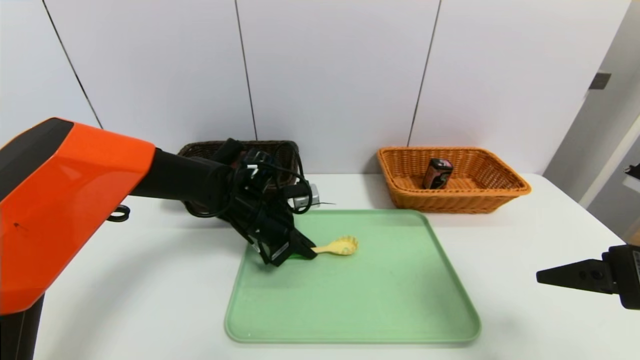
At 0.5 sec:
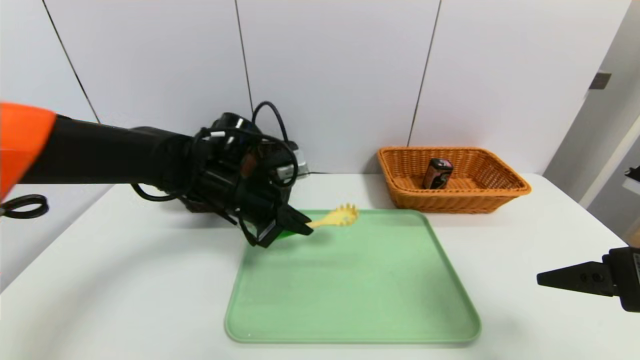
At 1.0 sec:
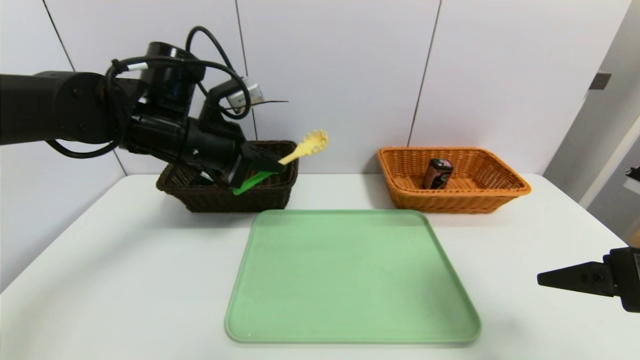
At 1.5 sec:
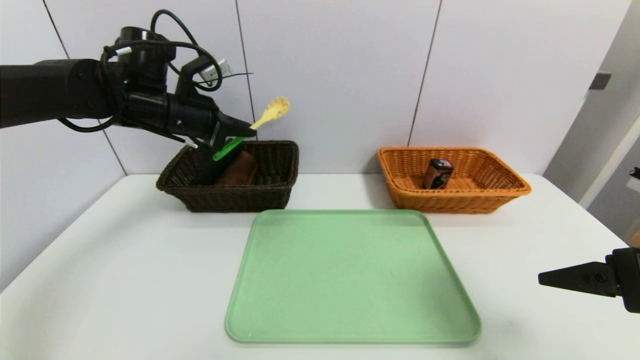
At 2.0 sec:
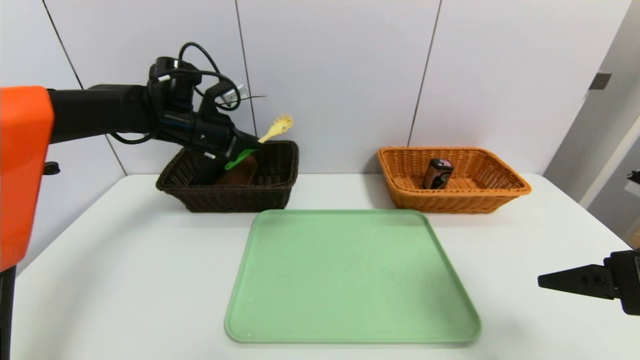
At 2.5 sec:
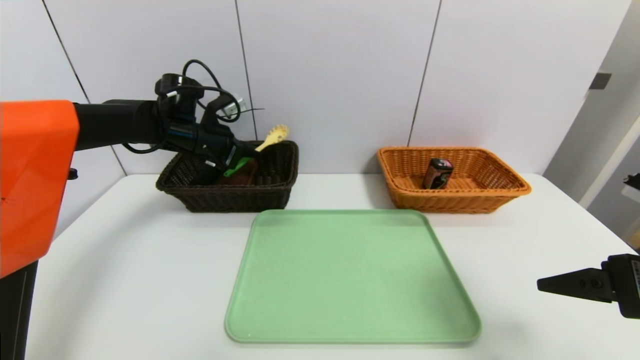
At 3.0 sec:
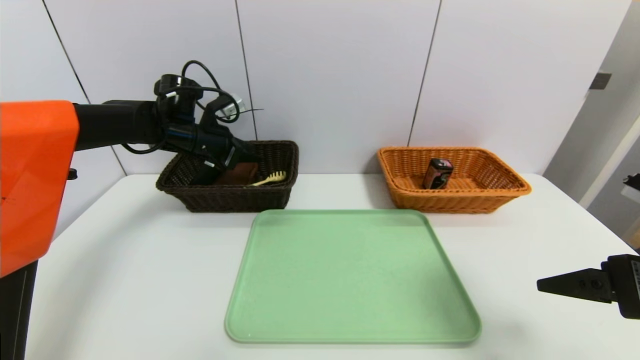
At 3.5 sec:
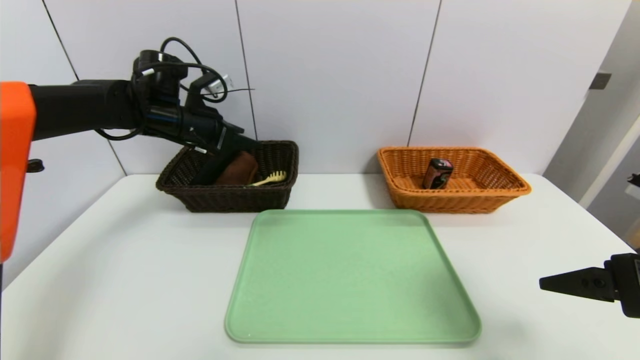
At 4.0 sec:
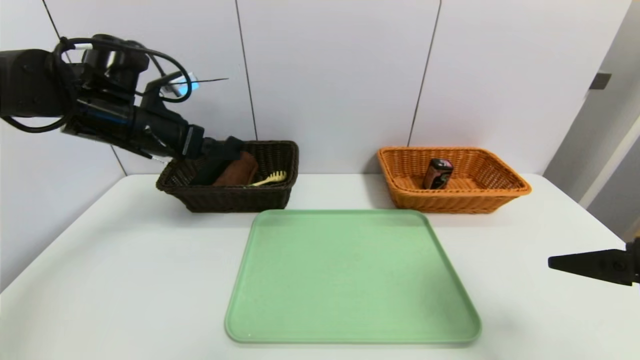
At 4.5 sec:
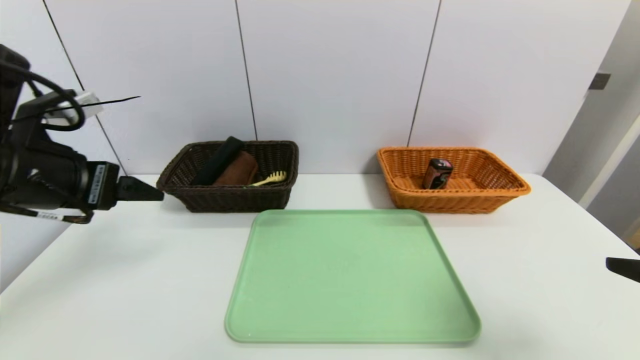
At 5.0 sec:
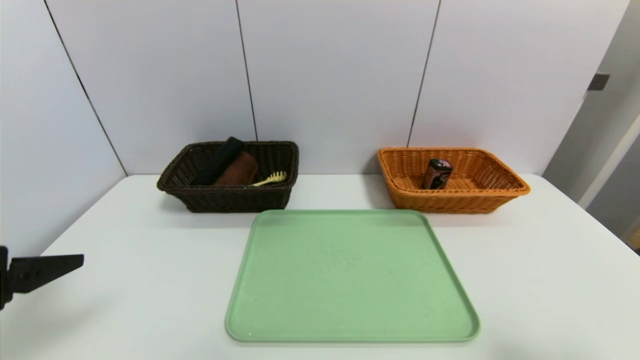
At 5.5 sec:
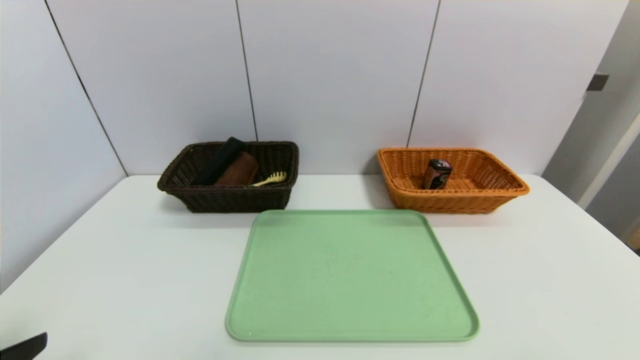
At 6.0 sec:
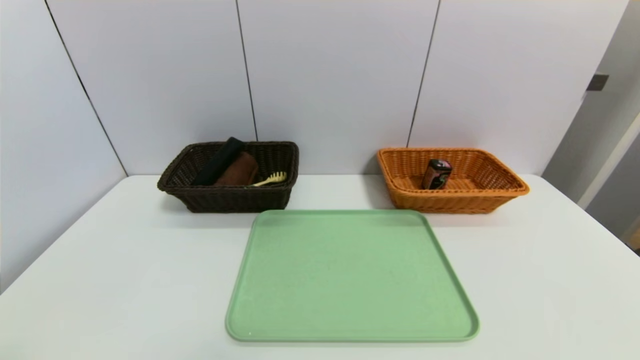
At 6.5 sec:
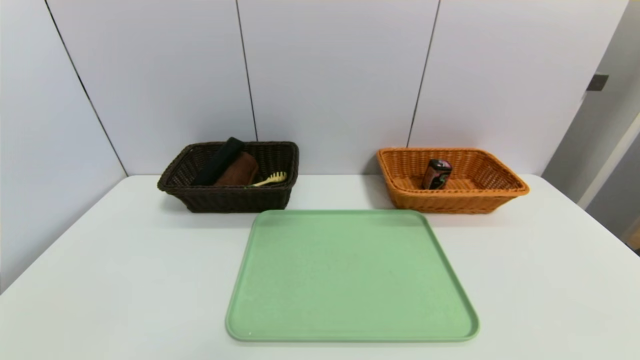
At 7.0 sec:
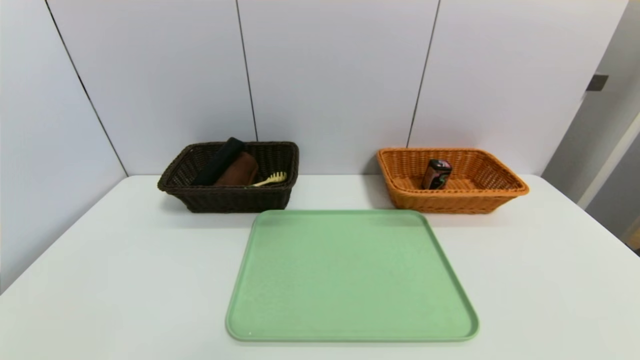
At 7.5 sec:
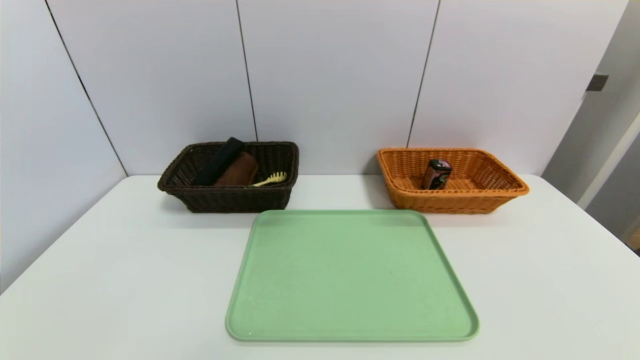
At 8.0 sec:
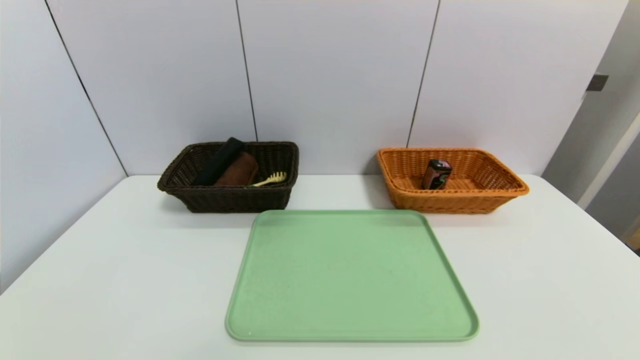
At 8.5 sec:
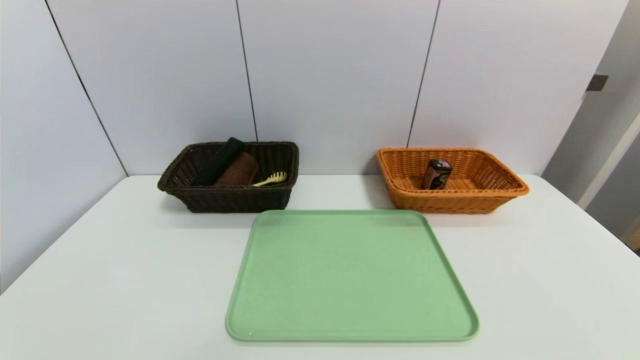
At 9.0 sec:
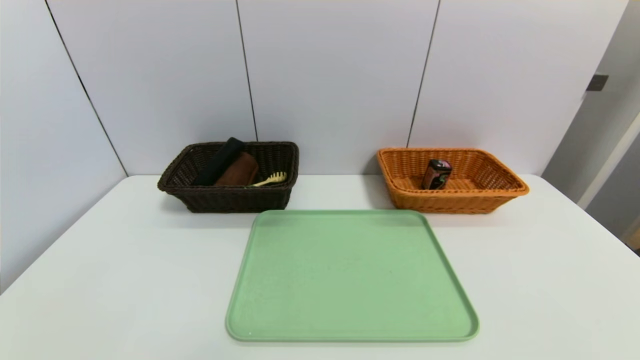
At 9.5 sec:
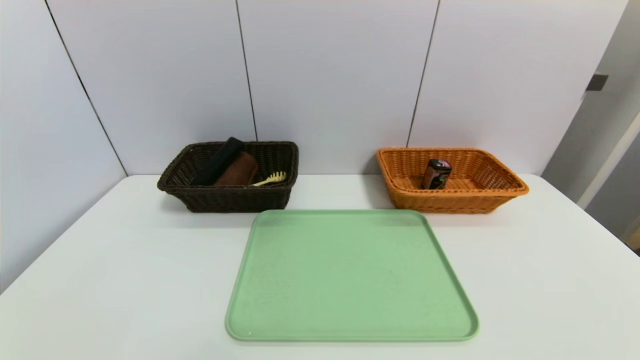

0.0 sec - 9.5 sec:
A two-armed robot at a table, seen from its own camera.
Task of the whole recording: place the food in the right basket with the right gripper, and place the non food items in the left basket with the left gripper.
Step, 0.0 sec - 3.0 sec: Grasp the back scratcher and put it in the left basket.
0.0 sec - 2.0 sec: The left gripper is displaced upward, to the left and forward by about 20 cm.
2.0 sec - 4.0 sec: The left gripper goes roughly 10 cm backward, and opens up.
4.0 sec - 5.5 sec: The left gripper goes about 30 cm backward; the right gripper travels backward by about 15 cm.
